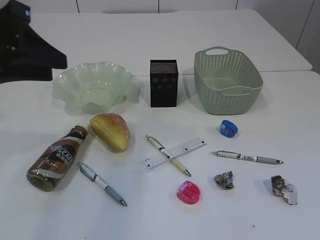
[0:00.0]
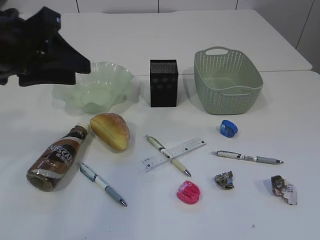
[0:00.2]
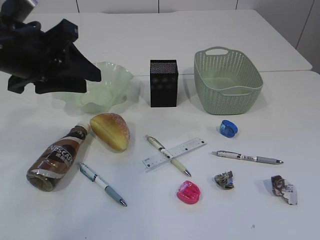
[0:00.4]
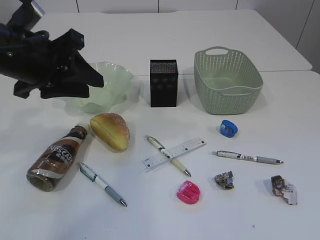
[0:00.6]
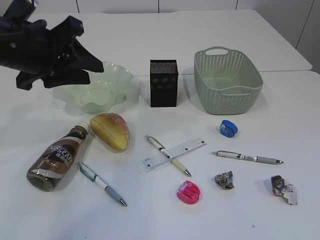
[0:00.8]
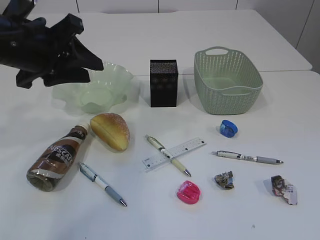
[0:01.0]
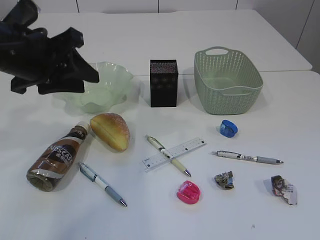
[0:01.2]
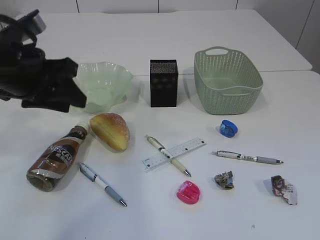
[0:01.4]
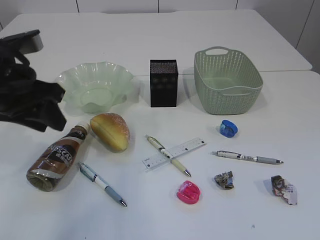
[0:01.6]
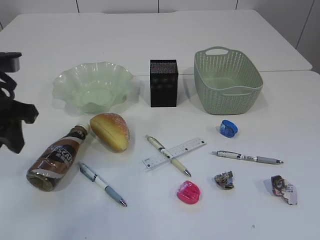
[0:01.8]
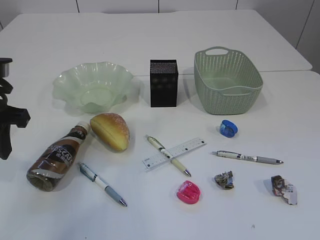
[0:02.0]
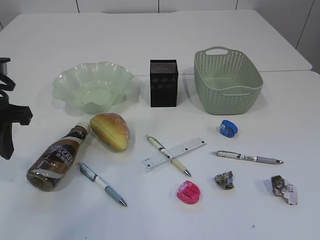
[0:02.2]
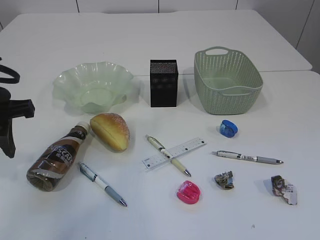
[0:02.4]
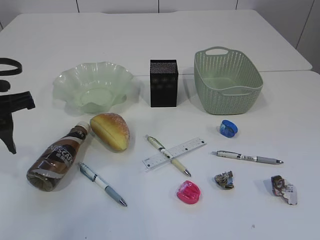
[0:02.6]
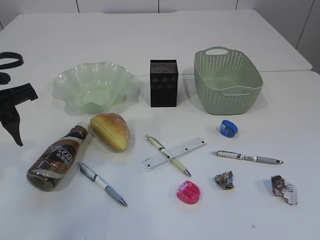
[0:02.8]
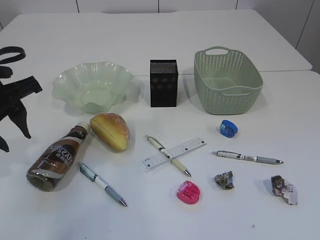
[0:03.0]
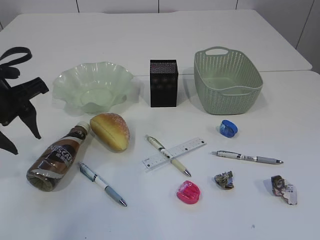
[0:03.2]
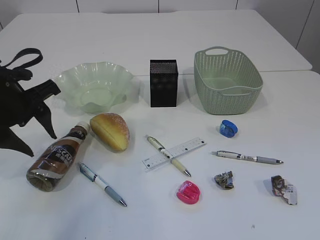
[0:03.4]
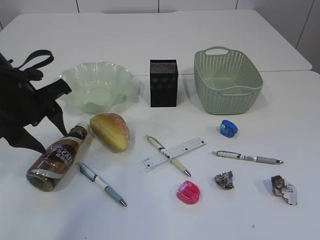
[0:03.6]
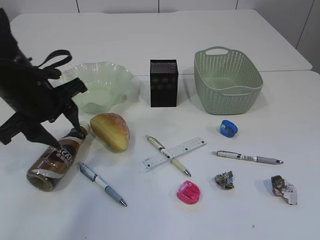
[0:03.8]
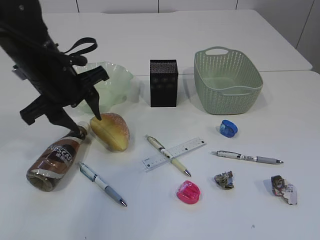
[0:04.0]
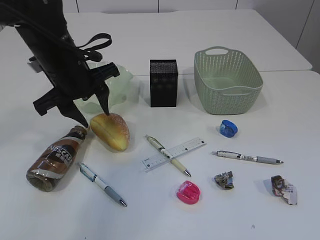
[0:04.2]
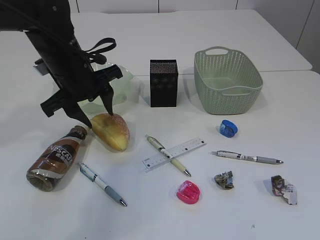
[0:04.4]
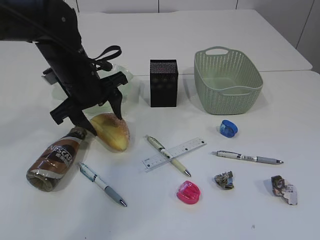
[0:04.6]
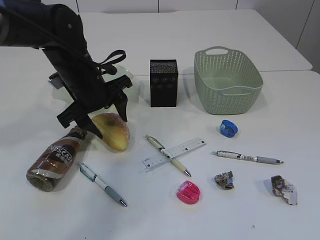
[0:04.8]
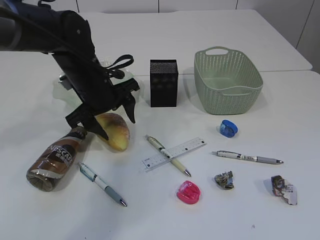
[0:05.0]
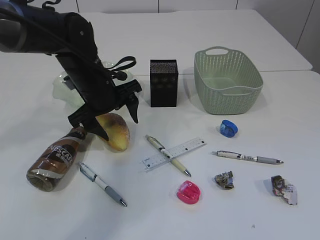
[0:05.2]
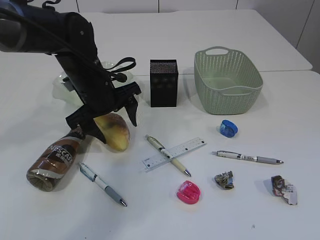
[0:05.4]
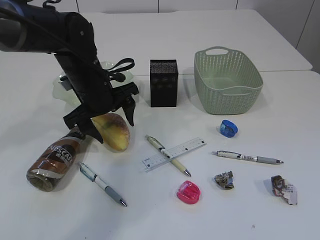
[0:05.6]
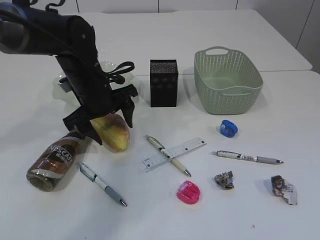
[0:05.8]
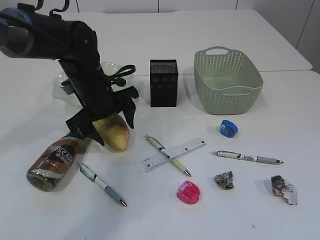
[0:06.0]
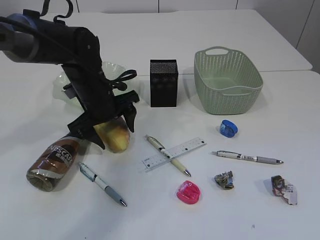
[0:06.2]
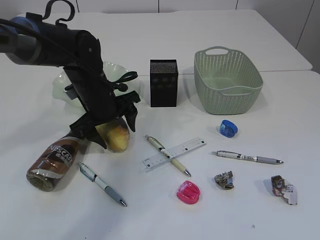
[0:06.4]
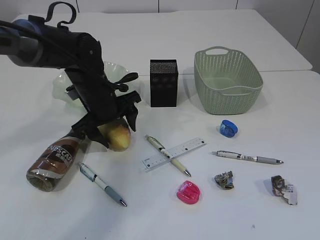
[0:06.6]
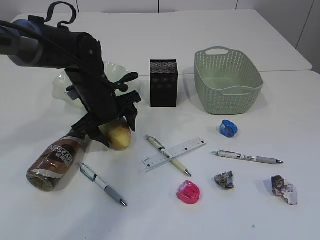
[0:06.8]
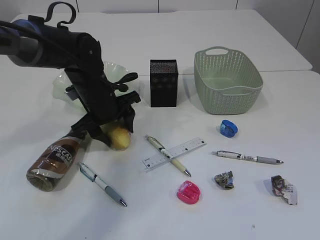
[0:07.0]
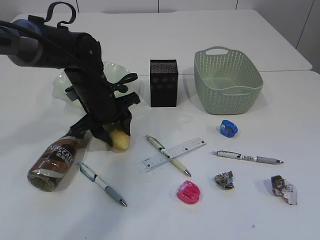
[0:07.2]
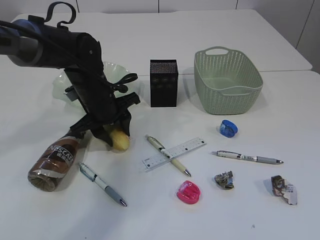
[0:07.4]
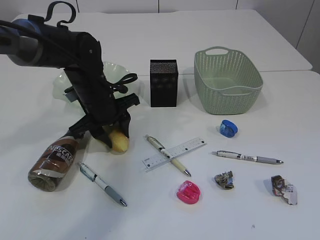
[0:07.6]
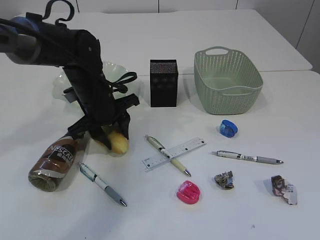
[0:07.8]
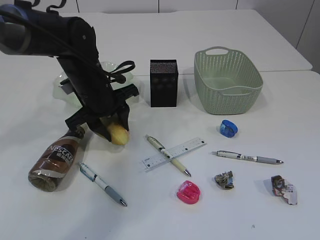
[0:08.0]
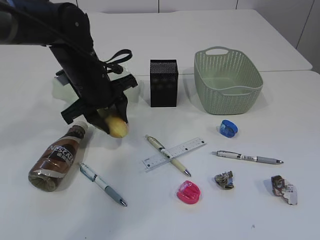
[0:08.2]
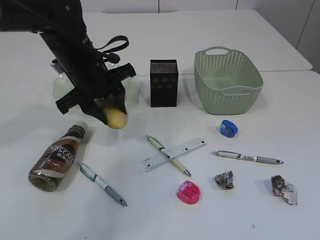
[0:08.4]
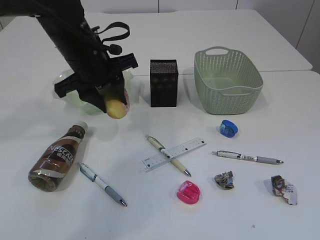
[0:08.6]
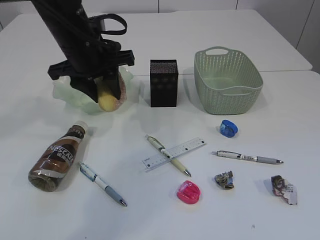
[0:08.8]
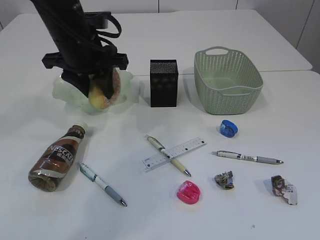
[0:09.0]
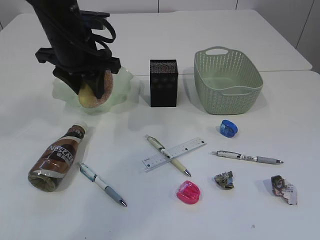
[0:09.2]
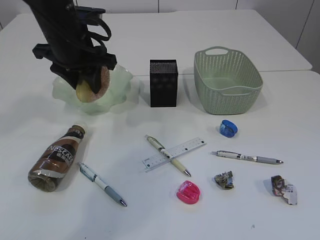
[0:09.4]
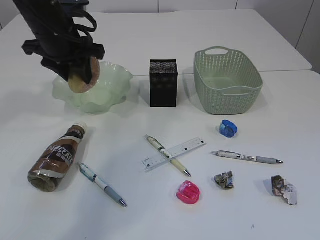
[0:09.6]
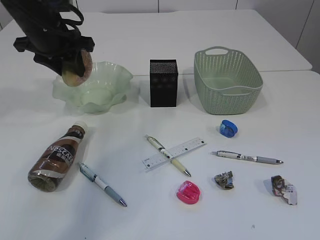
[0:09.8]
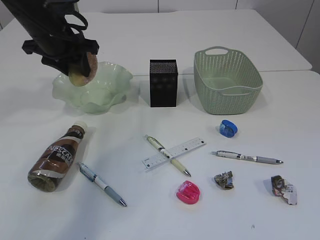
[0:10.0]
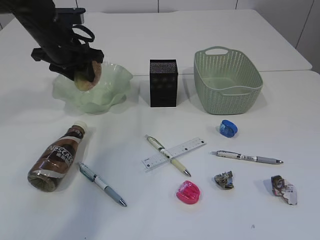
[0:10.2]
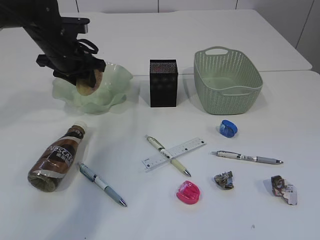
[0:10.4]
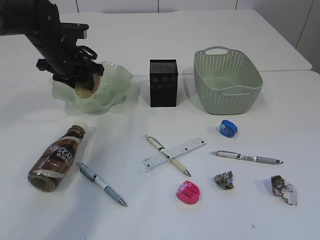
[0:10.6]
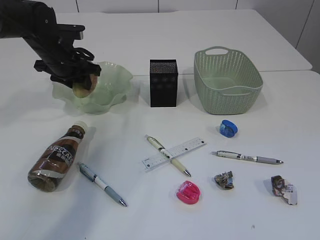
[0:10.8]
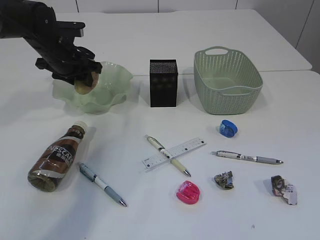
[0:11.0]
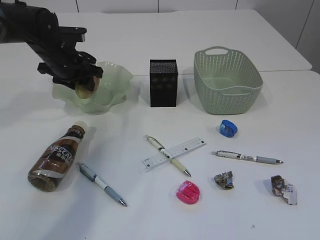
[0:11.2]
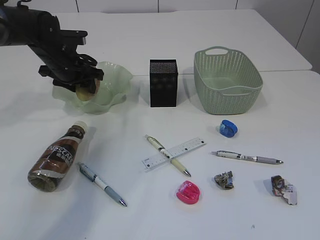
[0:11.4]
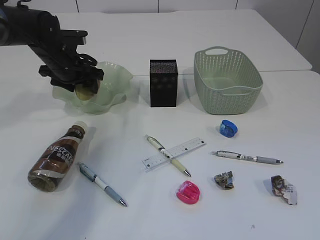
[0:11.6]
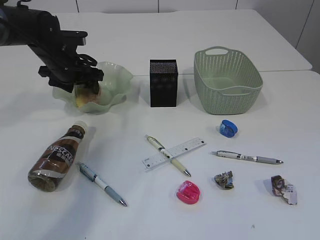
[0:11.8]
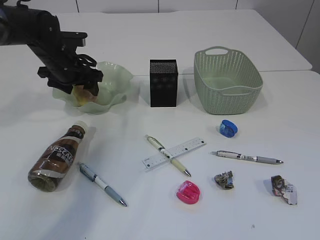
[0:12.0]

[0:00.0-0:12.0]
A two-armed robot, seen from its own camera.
0:00.0 to 0:01.6: The left gripper travels downward by some 5 cm.
0:03.0 to 0:04.4: The left gripper shifts roughly 15 cm to the right and forward.
0:04.4 to 0:06.0: The left gripper goes roughly 5 cm downward, and opens up.
0:06.0 to 0:07.6: The left gripper closes up.
0:07.6 to 0:09.0: The left gripper moves upward, roughly 10 cm.
0:09.0 to 0:10.4: The left gripper travels forward, to the left and downward by about 10 cm.
0:10.4 to 0:12.0: The left gripper opens its fingers.

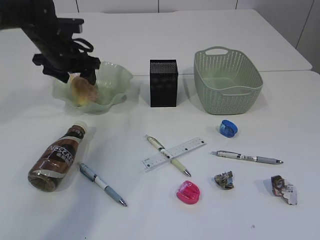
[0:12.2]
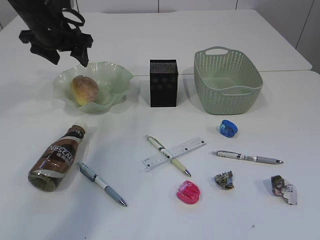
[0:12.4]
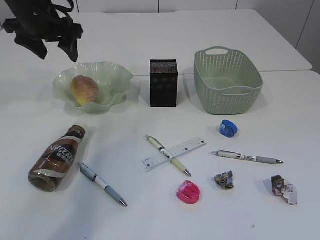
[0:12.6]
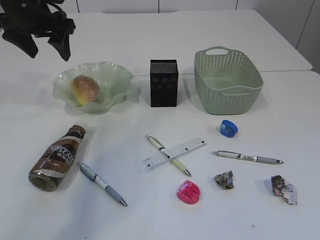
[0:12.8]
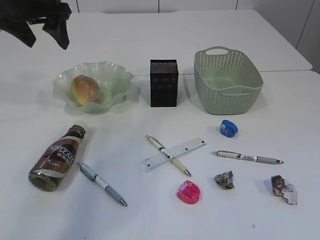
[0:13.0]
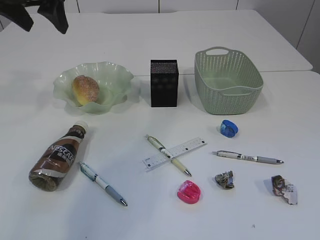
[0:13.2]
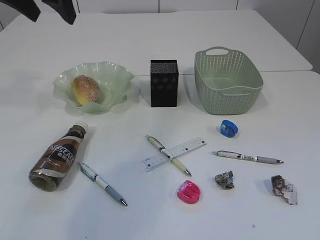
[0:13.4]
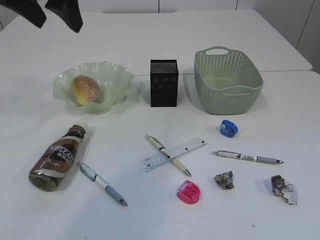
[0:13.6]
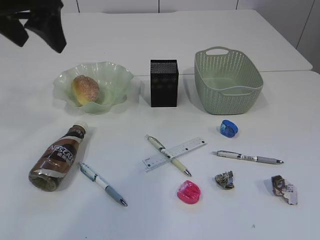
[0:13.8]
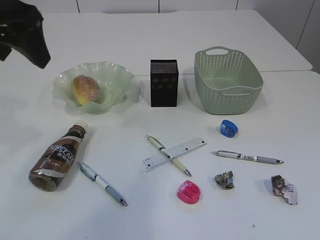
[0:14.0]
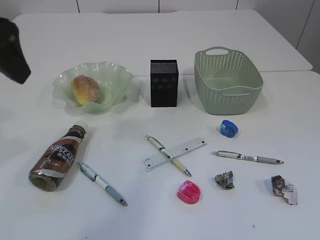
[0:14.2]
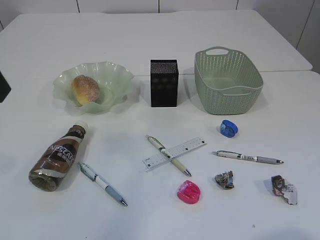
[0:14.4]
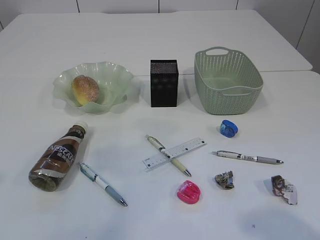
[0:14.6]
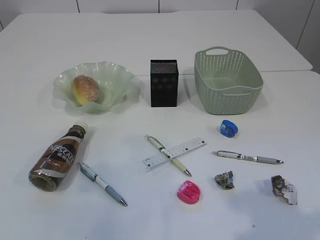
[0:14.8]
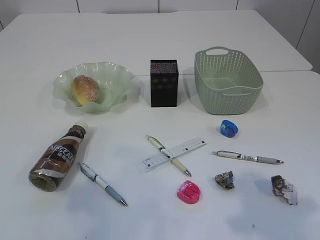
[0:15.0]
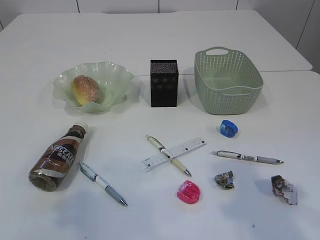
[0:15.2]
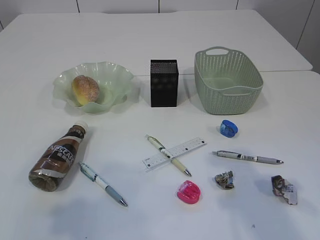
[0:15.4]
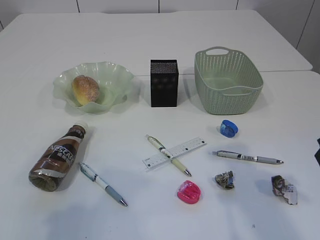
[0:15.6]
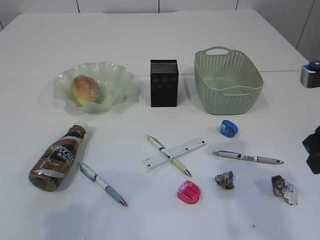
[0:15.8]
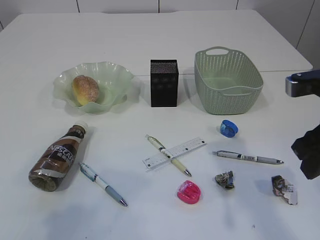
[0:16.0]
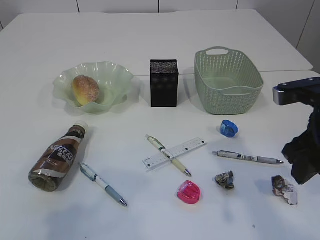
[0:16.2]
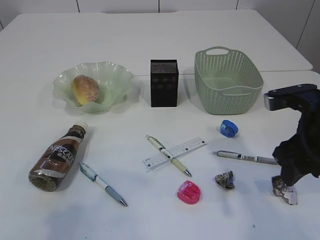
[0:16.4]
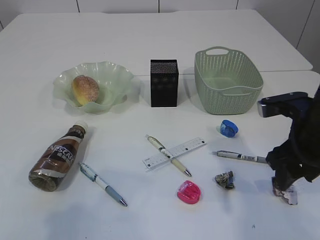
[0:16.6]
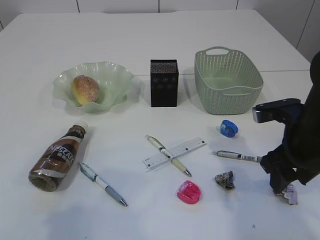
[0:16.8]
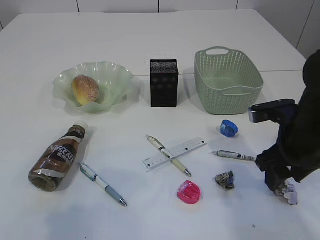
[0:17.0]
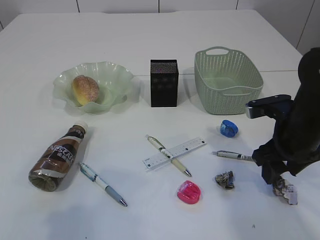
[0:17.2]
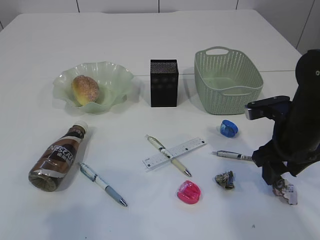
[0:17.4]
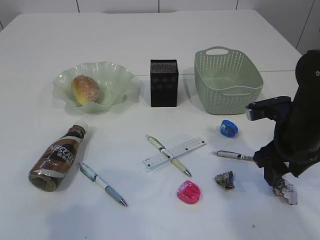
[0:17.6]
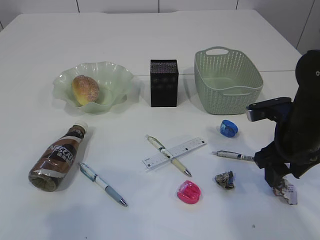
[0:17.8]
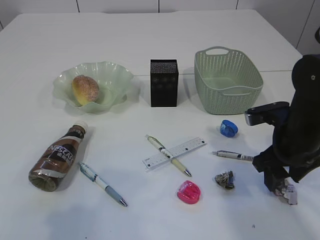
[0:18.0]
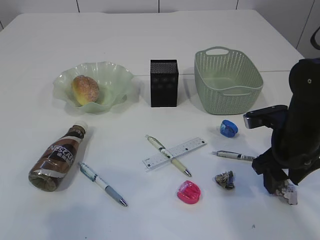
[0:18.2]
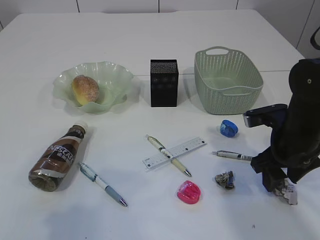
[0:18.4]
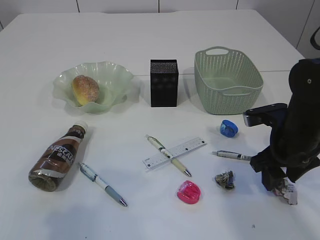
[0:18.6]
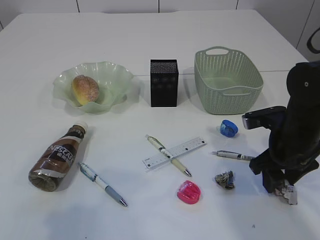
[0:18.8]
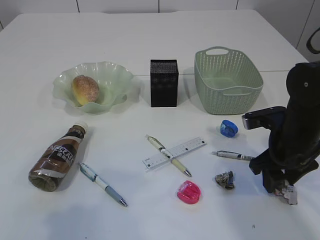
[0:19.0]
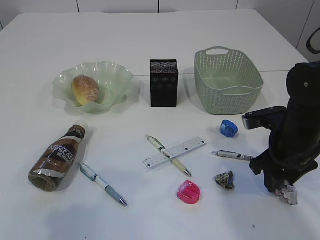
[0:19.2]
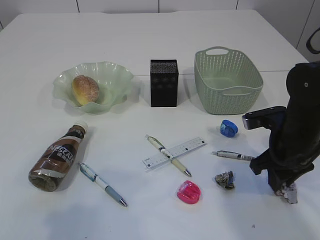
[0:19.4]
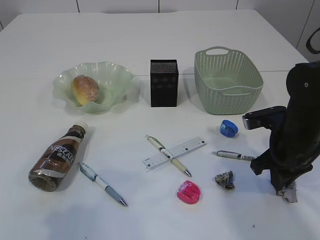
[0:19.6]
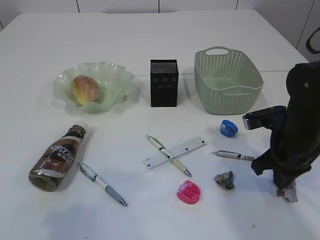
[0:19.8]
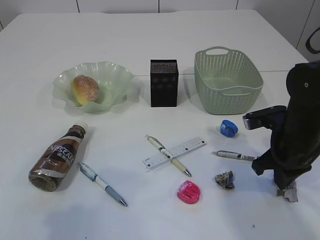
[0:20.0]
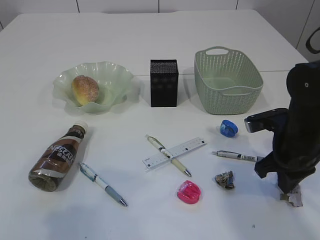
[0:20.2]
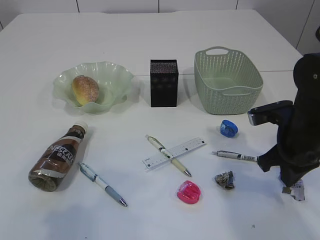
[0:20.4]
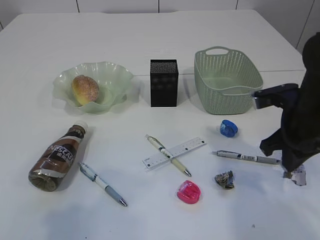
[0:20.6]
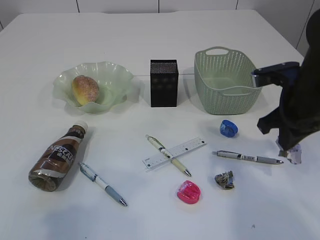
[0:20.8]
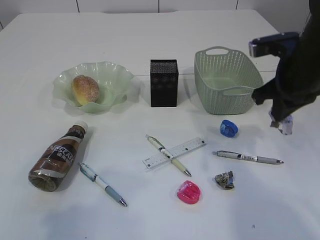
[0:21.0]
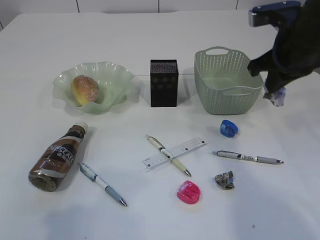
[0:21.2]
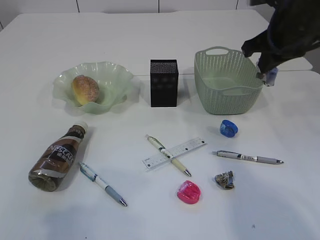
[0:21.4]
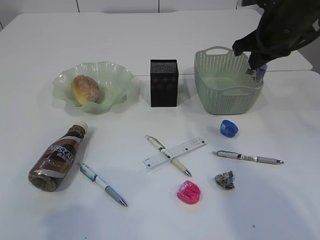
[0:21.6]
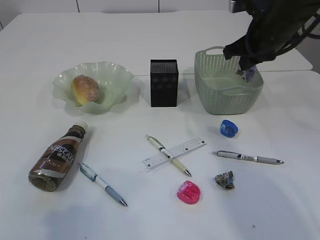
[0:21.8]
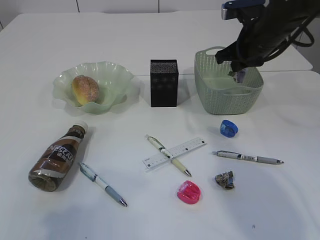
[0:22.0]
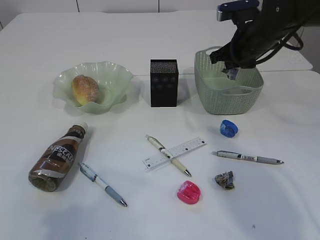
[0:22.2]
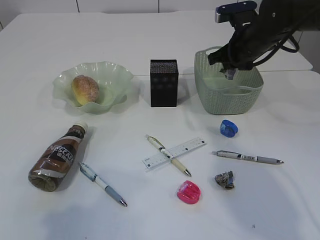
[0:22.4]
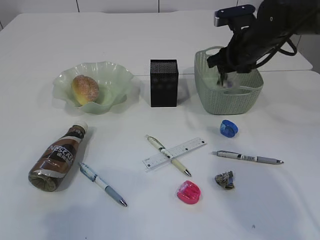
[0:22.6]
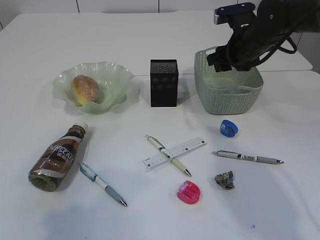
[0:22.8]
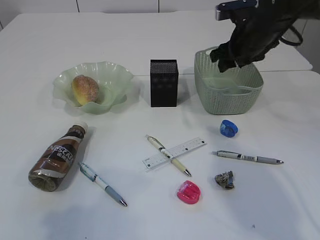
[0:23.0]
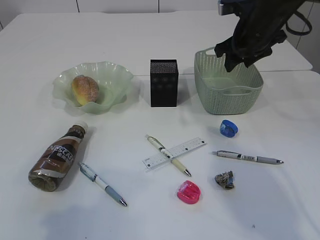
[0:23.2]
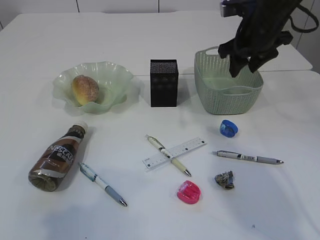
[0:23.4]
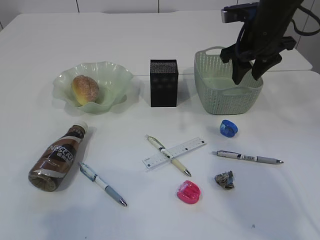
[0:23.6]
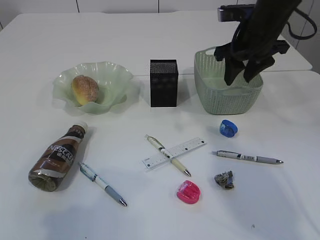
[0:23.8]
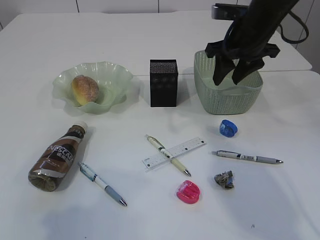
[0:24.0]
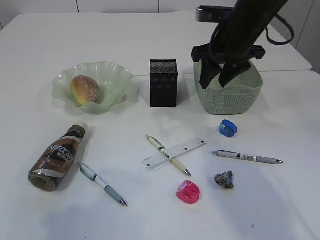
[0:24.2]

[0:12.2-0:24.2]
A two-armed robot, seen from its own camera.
Step, 0:13.0 to 0:20.8: Pick up the waste paper.
Step, 0:21.0 to 0:23.6: Place the waste paper in the basket.
0:12.2 to 0:13.8: The left gripper travels upward and backward by some 25 cm.
0:13.8 to 0:15.2: The right gripper moves forward, about 15 cm. Meanwhile the left gripper is displaced backward by about 20 cm.
0:15.2 to 0:16.6: The right gripper travels forward and downward by about 15 cm.
0:16.6 to 0:18.2: The right gripper shifts by approximately 5 cm.
0:18.2 to 0:19.8: The right gripper closes up.
0:19.8 to 0:21.2: The right gripper shifts approximately 15 cm upward.
0:21.2 to 0:22.6: The right gripper goes approximately 15 cm forward and downward, and opens its fingers.
0:22.6 to 0:24.2: The right gripper changes place by some 10 cm.
